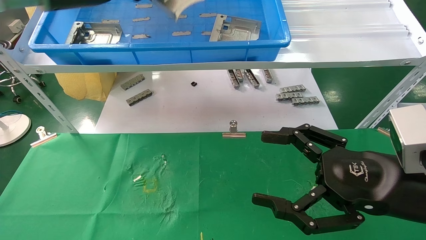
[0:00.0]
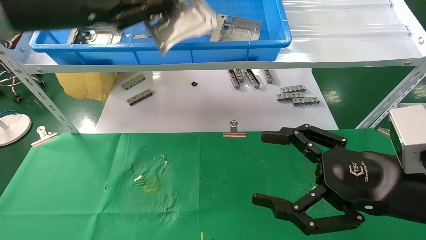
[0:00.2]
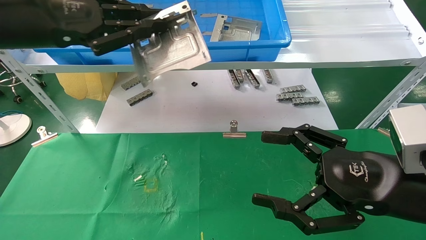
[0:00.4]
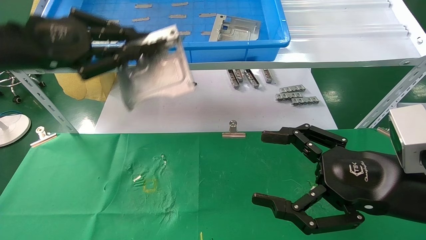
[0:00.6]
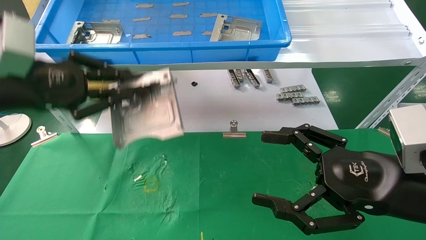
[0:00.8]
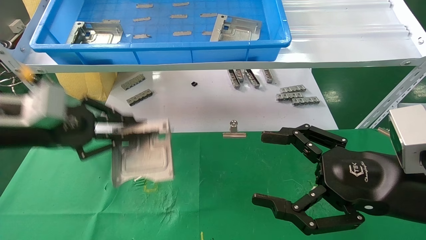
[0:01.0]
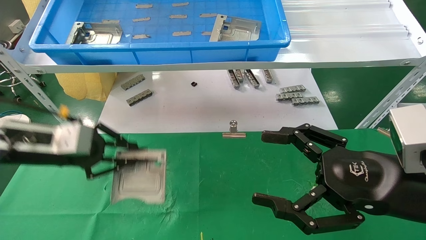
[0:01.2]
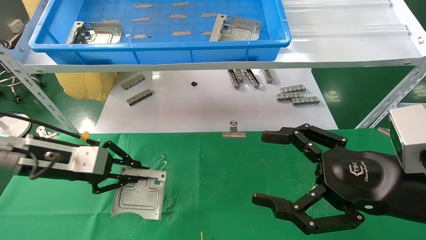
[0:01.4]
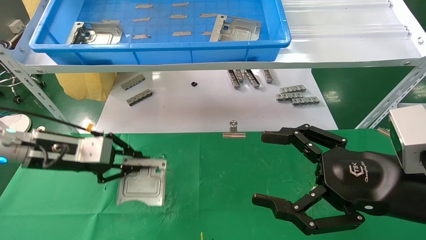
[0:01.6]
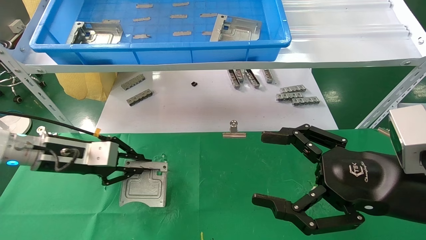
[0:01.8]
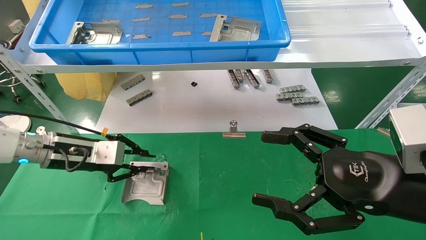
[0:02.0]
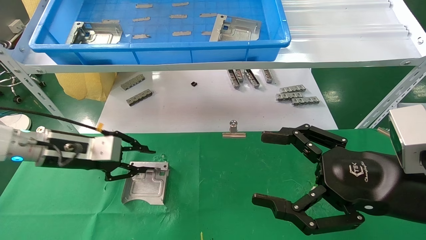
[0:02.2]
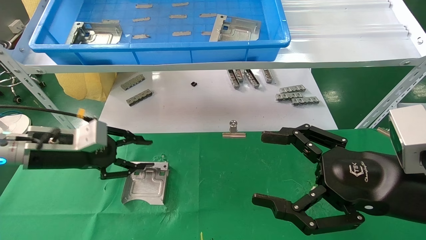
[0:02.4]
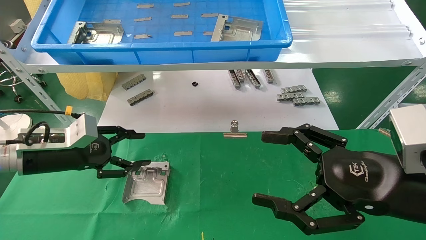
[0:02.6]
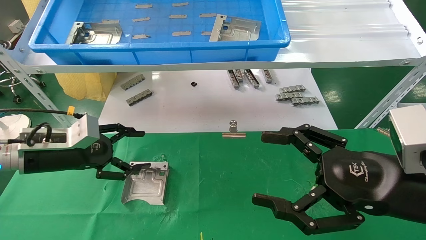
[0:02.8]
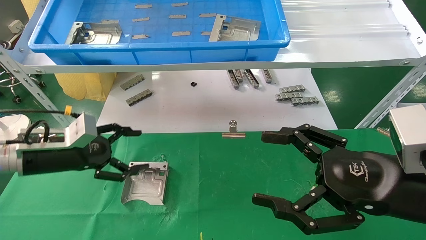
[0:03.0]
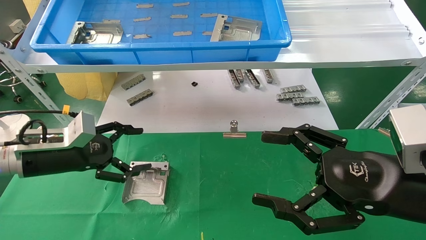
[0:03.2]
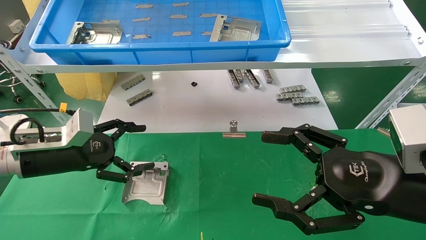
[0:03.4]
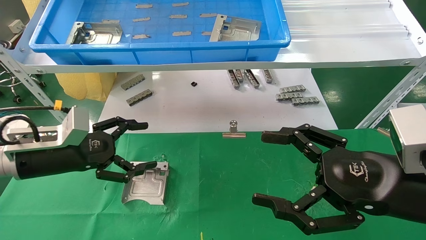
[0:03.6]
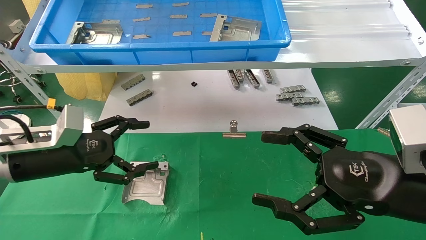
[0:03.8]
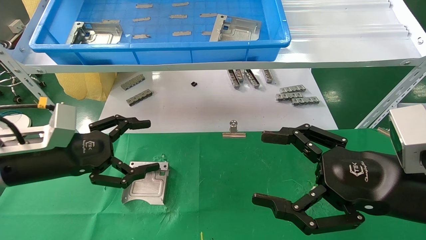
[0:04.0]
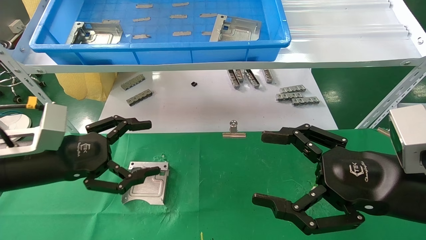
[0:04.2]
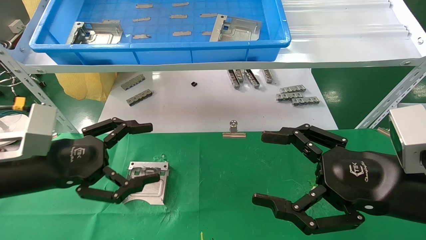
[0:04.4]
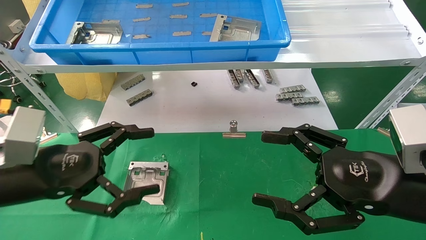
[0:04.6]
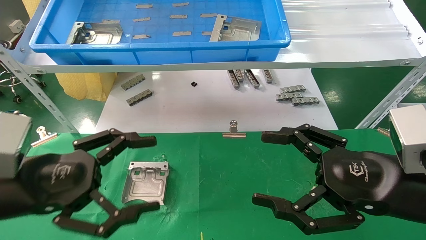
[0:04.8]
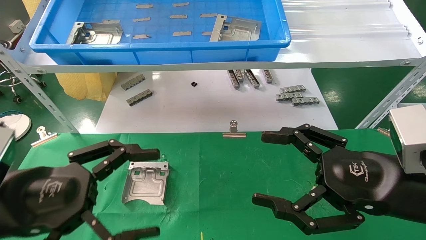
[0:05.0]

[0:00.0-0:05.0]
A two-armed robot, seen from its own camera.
Task of the whole recording: use the mechanical arm to pick up the parts and place them on the table.
Step, 0:00.0 to 0:02.6: Place the hard drive bracket into the box.
0:00.0 to 0:01.6: The left gripper heads downward, covering roughly 25 cm.
0:01.6 to 0:03.4: The left gripper opens.
0:03.4 to 0:05.0: The left gripper shifts about 15 cm backward.

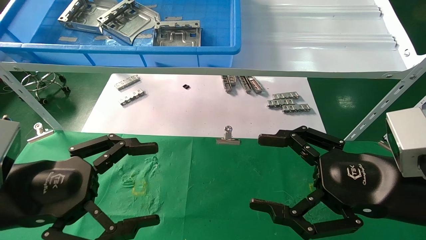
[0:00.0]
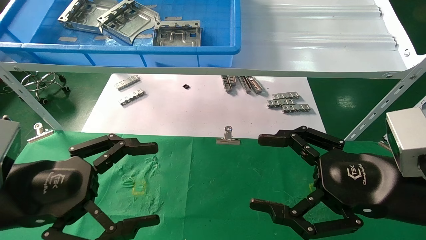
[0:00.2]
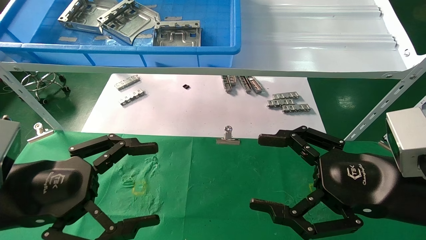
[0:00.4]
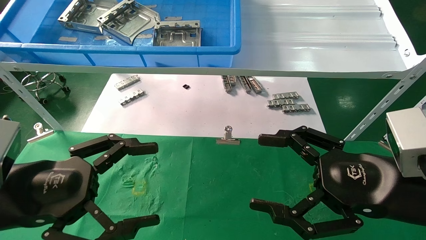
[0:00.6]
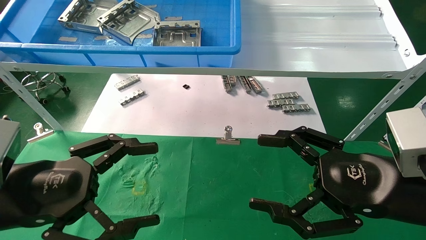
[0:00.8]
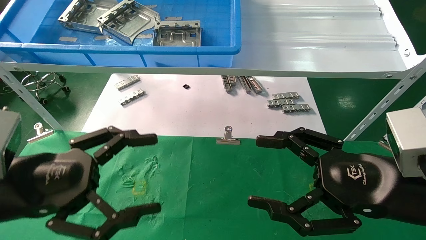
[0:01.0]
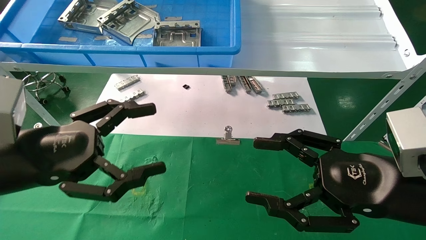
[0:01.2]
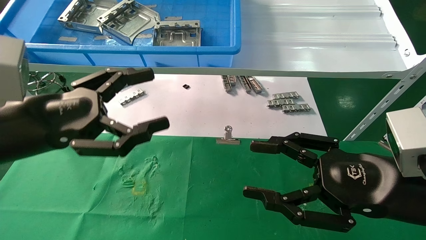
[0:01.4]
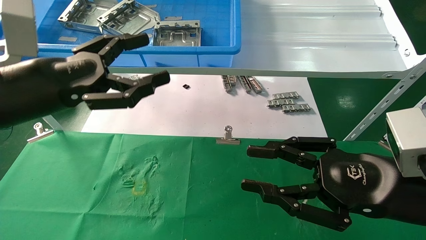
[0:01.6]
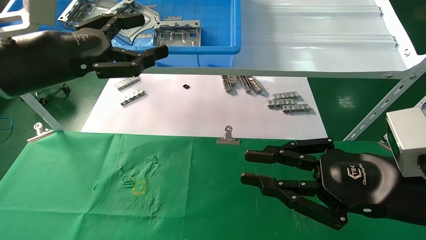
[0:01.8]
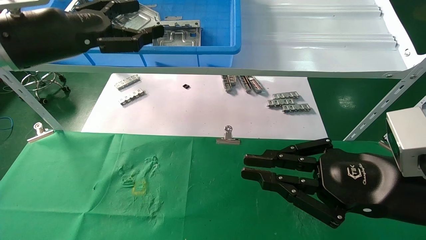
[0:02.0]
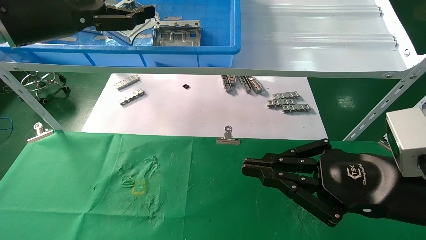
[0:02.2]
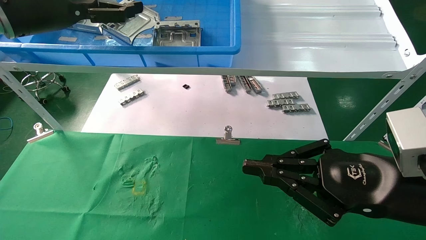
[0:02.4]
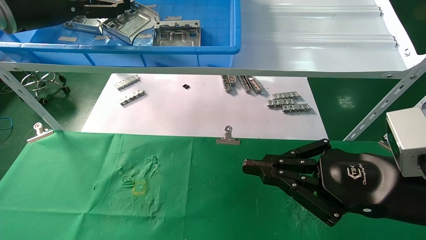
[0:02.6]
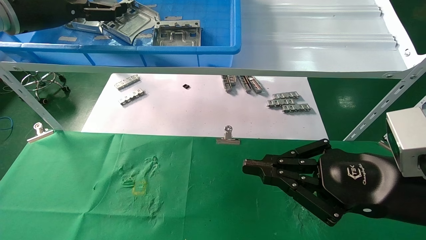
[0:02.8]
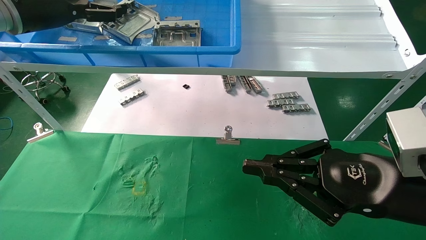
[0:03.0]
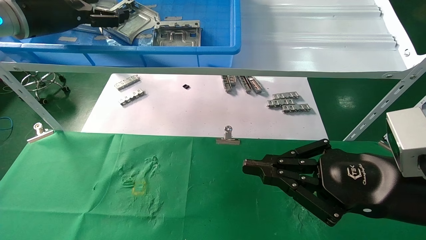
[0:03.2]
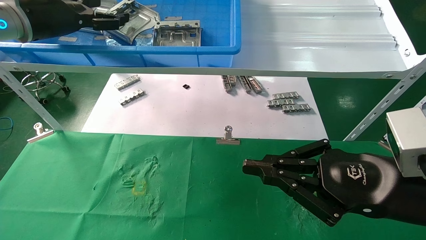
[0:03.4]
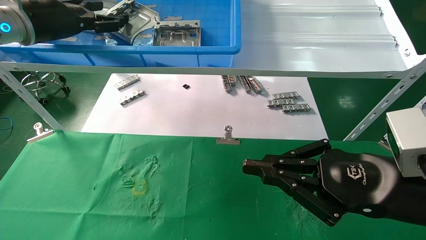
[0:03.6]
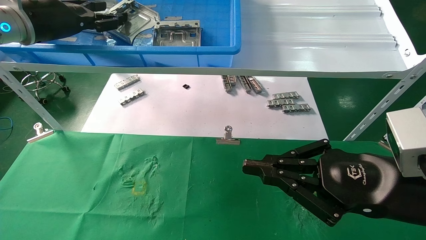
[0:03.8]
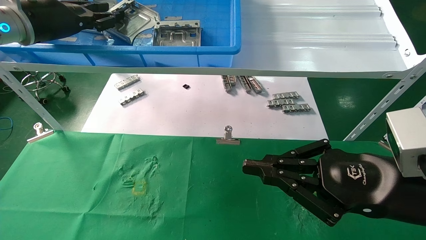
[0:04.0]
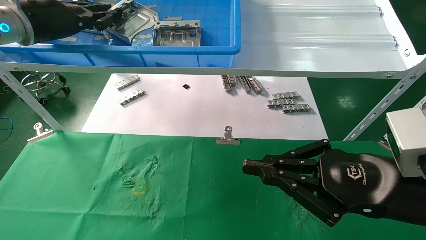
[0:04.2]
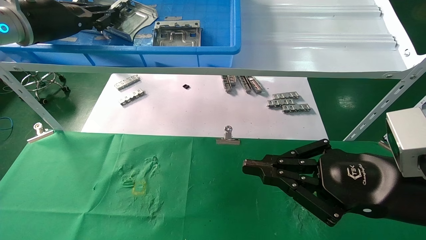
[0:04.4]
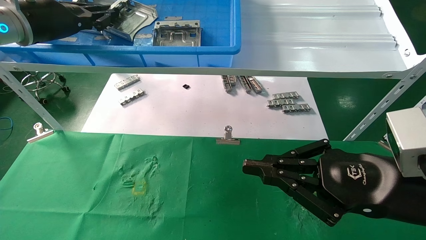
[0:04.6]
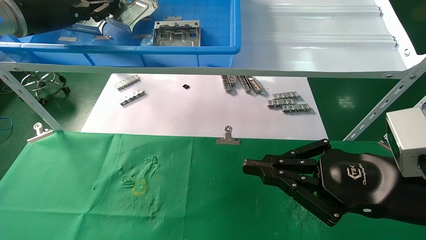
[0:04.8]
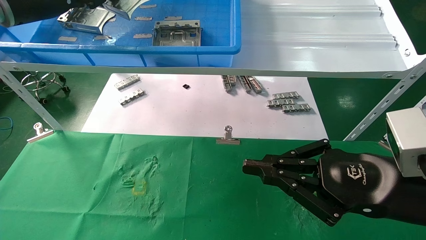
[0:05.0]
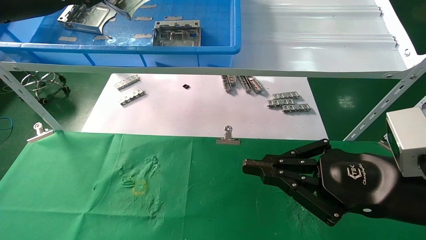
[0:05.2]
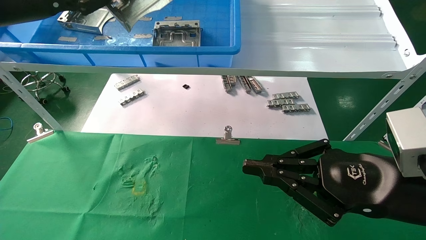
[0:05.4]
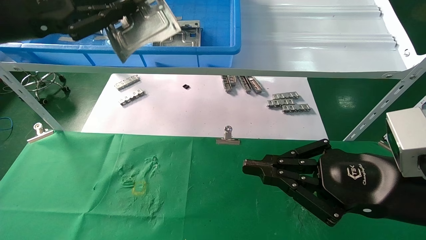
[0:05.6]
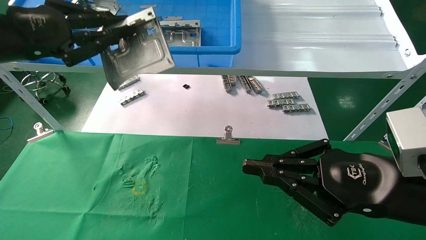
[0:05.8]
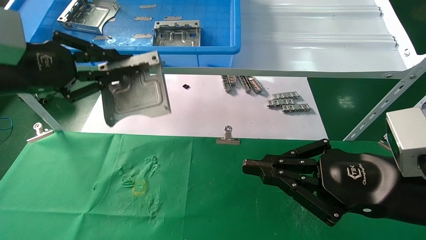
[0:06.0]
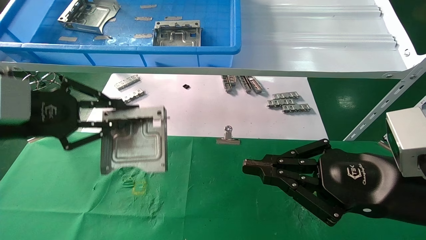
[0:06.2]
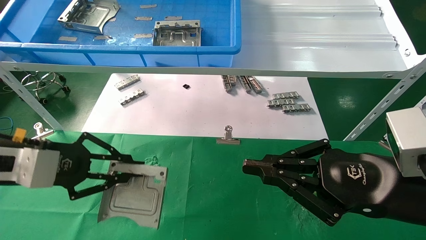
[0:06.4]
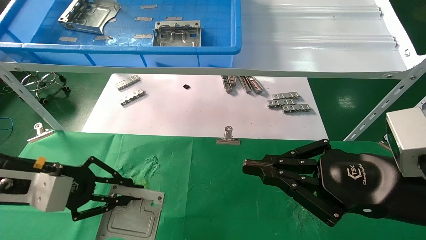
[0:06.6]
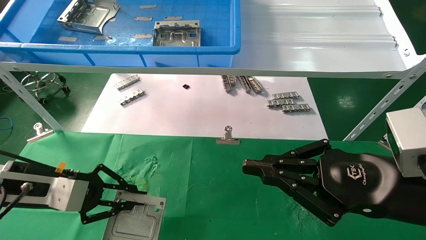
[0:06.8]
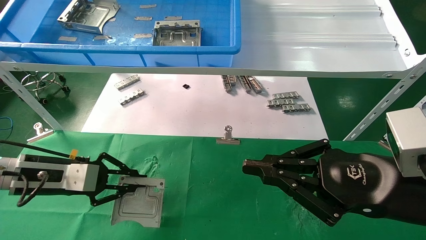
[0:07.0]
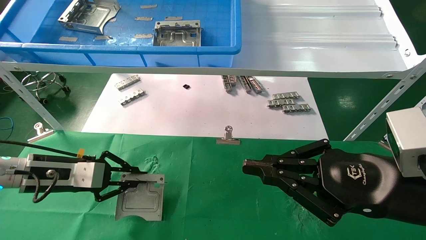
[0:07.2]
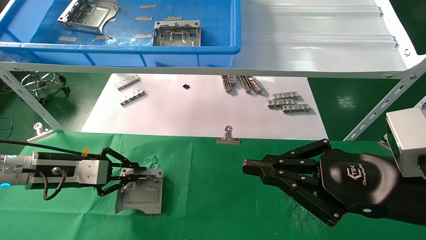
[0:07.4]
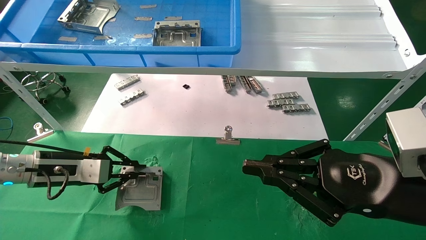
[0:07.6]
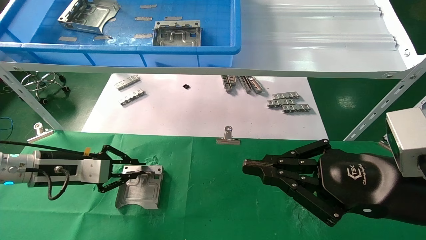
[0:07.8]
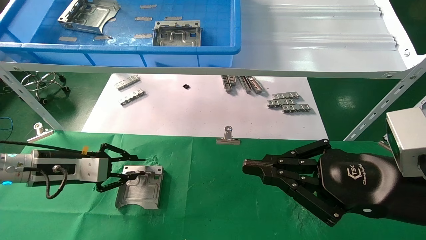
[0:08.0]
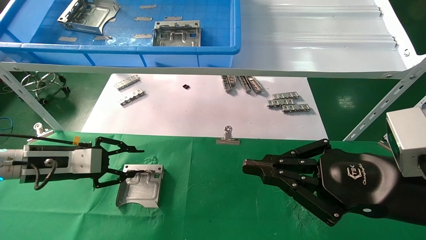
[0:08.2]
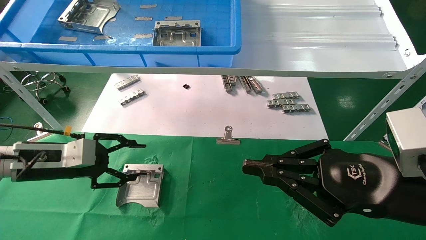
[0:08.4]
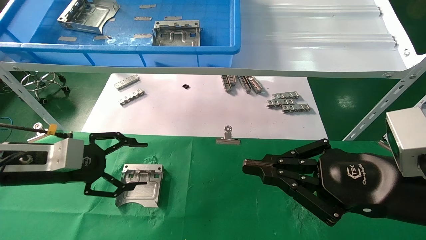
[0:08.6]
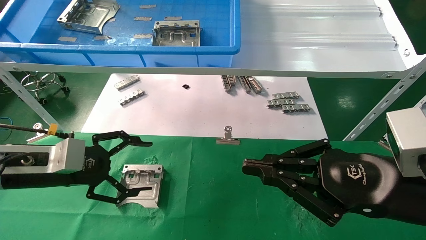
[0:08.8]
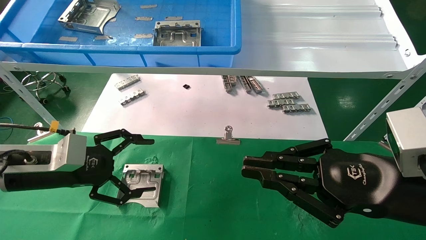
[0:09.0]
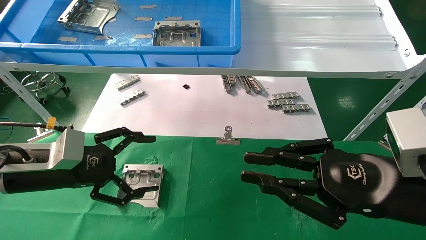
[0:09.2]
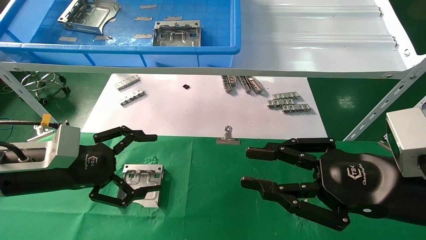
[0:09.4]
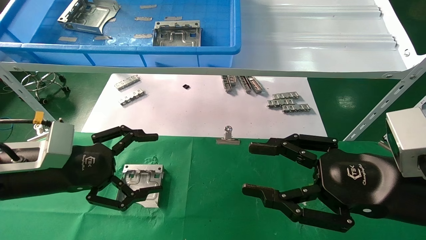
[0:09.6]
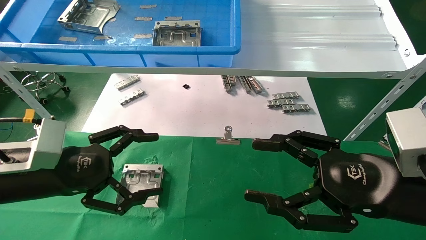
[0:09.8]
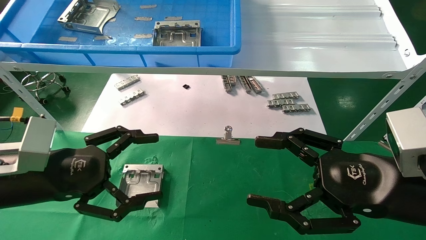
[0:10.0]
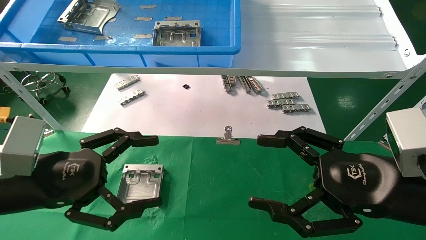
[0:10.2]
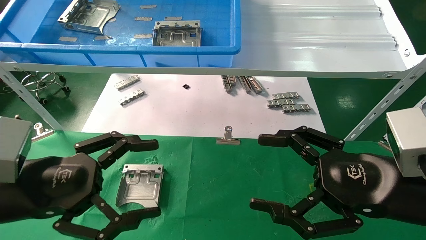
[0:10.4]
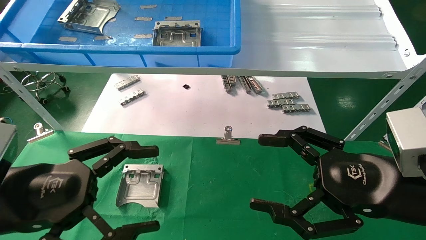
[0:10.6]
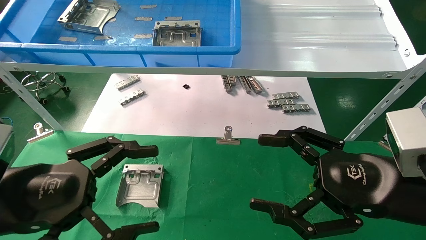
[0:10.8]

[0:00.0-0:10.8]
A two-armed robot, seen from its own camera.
Task of the whole recording: use the mechanical arm to pick up the parts and place them on the table.
Step, 0:01.2 to 0:04.4: Pick up the hard drive bracket from the feeding area.
Step, 0:04.6 to 0:08.0: Place the hard drive bracket into the box.
0:00.0 to 0:01.6: The left gripper travels upward and forward by about 10 cm. The right gripper closes up.
0:01.6 to 0:03.0: The left gripper goes roughly 20 cm forward and upward; the right gripper closes.
0:03.0 to 0:04.6: The left gripper closes up.
0:04.6 to 0:06.2: The left gripper goes some 20 cm backward and downward.
0:06.2 to 0:07.8: The left gripper moves downward and forward, approximately 15 cm.
0:07.8 to 0:09.2: The left gripper travels backward by about 5 cm, and opens up.
0:09.2 to 0:10.8: The right gripper opens up; the left gripper is displaced backward by about 10 cm.
